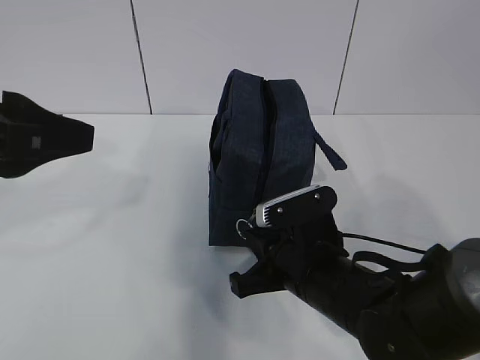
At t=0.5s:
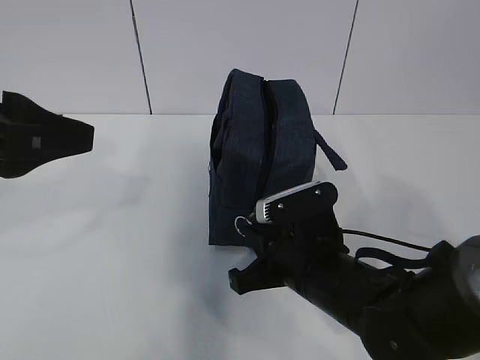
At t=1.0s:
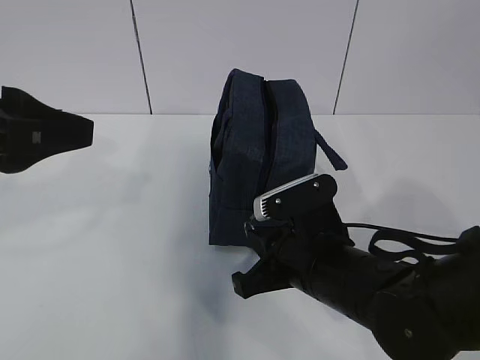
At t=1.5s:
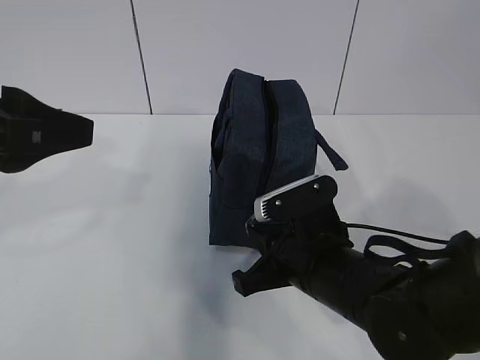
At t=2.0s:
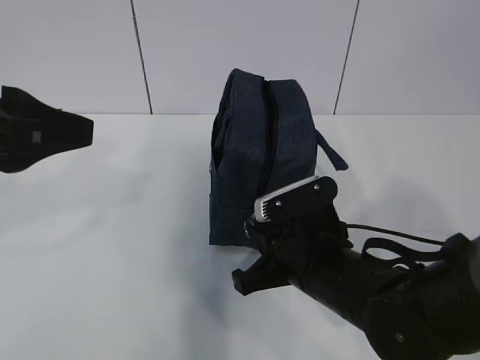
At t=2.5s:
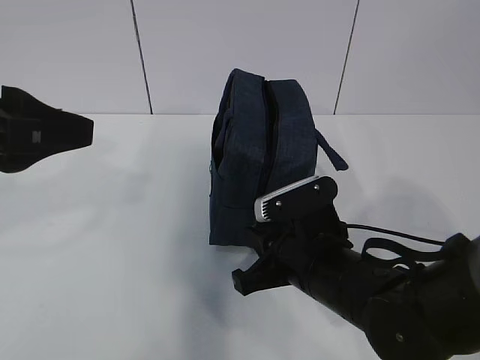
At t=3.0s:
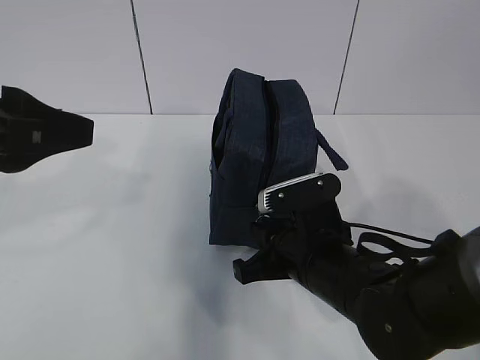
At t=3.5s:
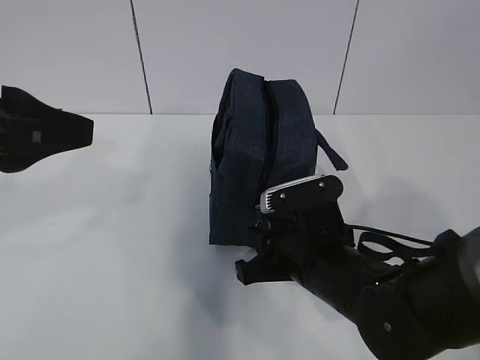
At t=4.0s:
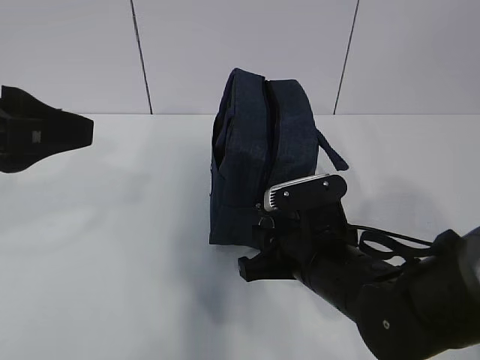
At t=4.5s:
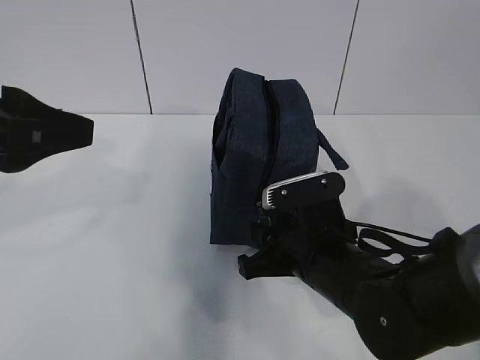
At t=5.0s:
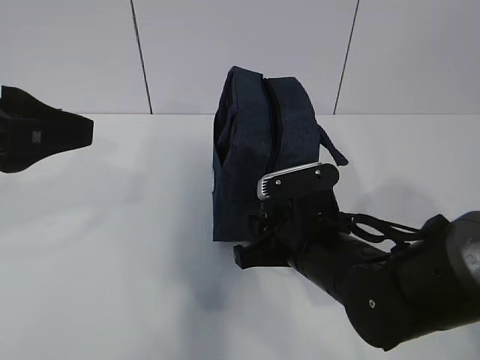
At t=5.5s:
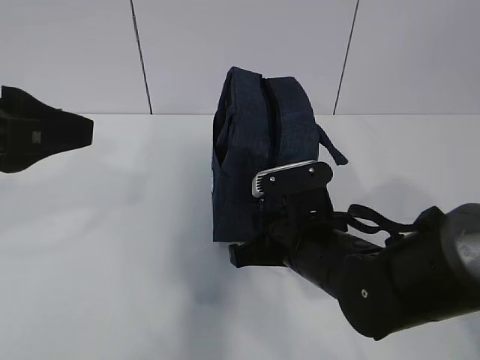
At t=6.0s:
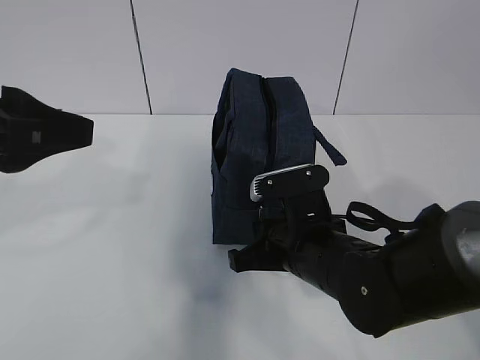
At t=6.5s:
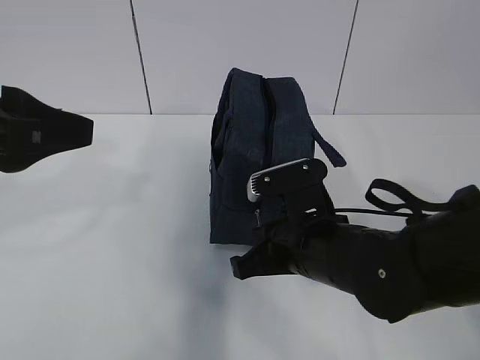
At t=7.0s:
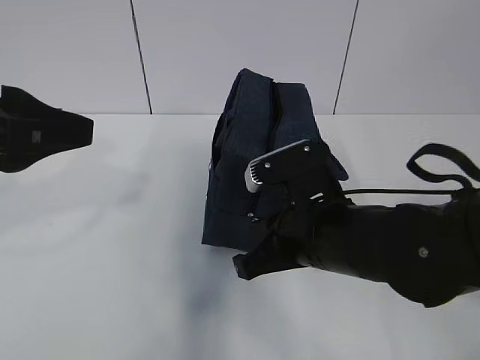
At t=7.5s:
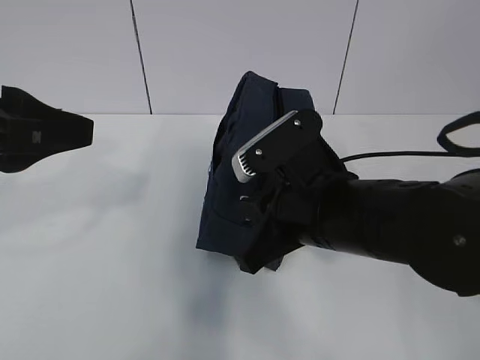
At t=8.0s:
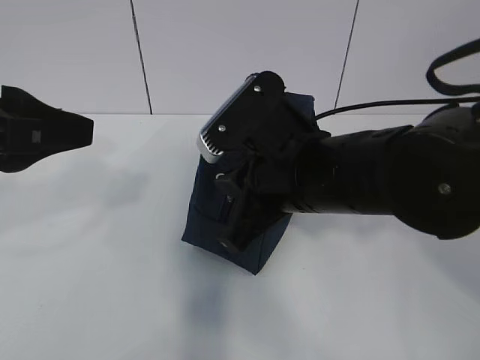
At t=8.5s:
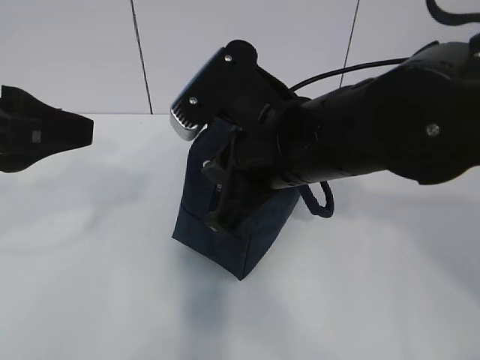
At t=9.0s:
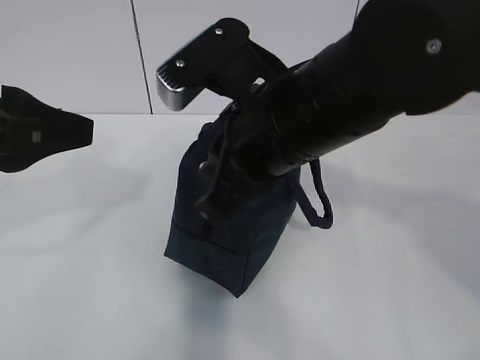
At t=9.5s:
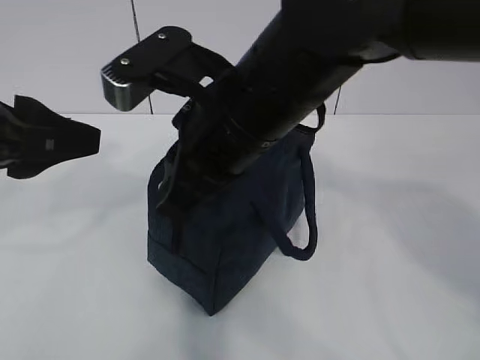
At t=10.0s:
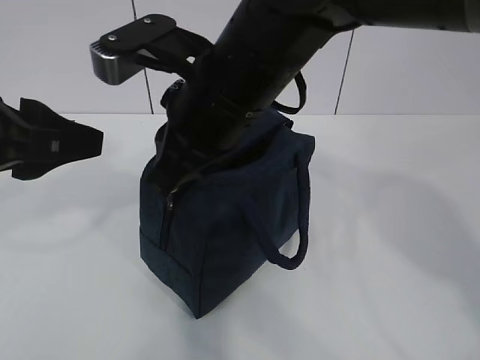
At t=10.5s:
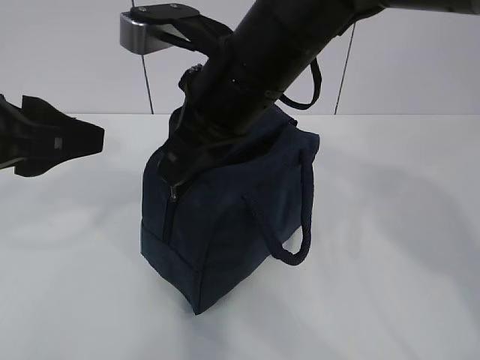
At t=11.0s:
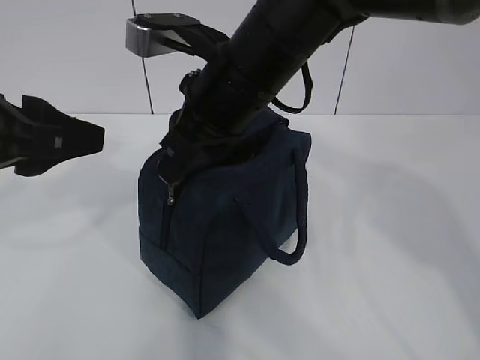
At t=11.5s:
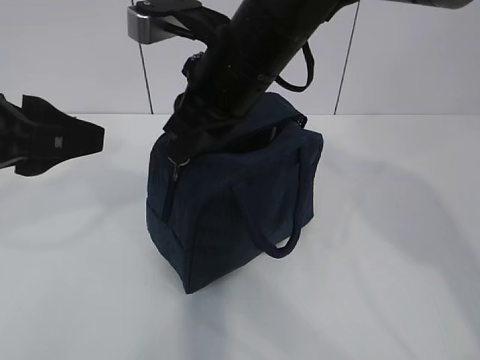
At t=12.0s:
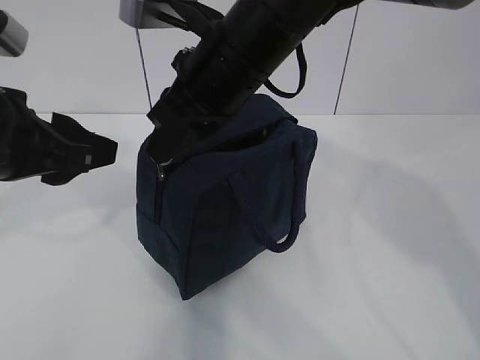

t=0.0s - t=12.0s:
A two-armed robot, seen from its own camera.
t=0.0s - t=2.0s: The grippers make only small movements.
t=2.0s - t=4.0s: The right gripper opens up.
t=4.0s - t=6.0s: The right gripper closes up.
t=6.0s - t=8.0s: The right gripper travels upward by about 10 cm.
t=8.0s - t=10.0s: The right gripper shifts some 10 cm upward and to the left.
t=10.0s - t=12.0s: The grippers make only small movements.

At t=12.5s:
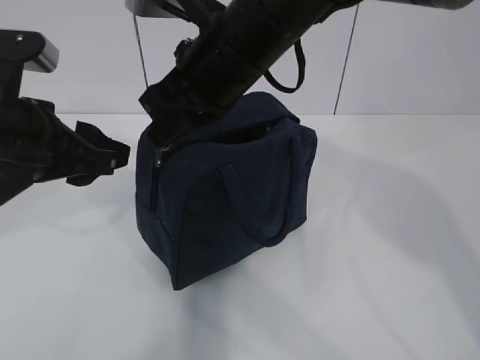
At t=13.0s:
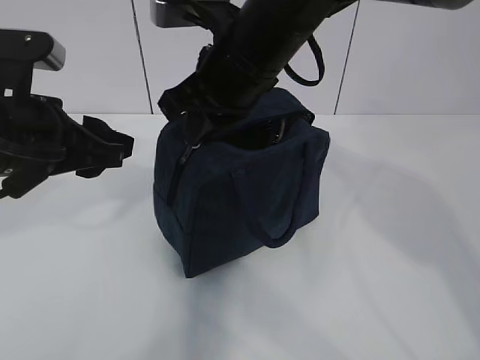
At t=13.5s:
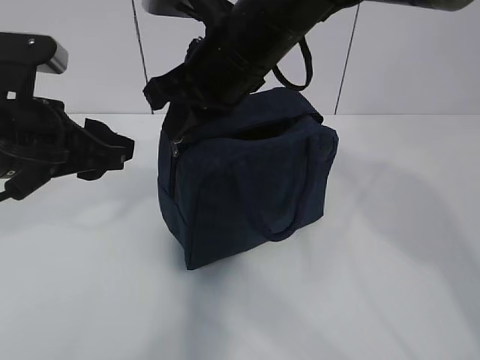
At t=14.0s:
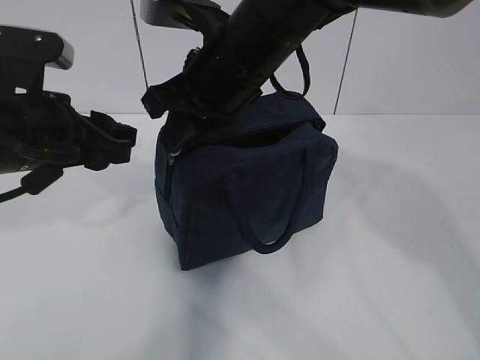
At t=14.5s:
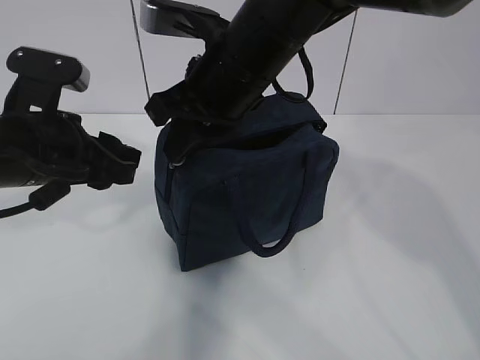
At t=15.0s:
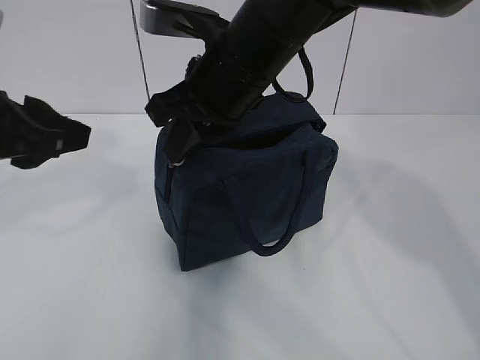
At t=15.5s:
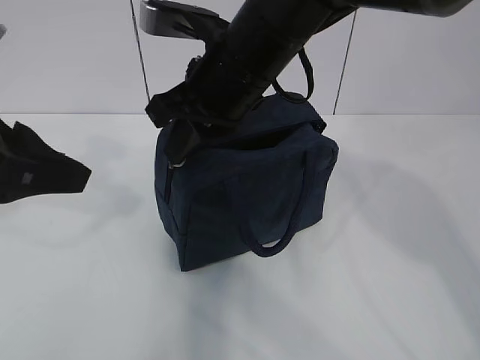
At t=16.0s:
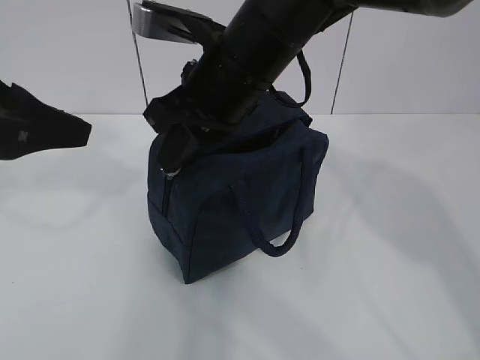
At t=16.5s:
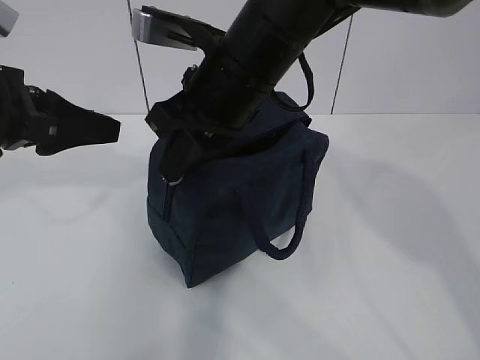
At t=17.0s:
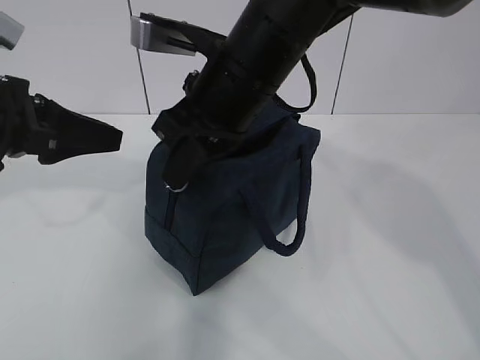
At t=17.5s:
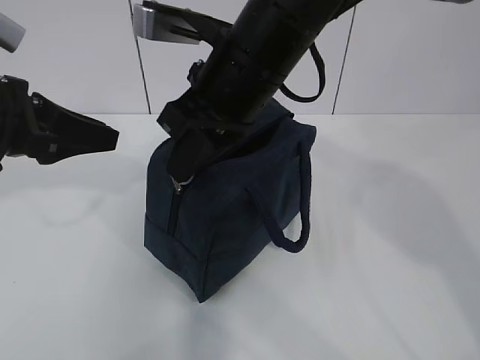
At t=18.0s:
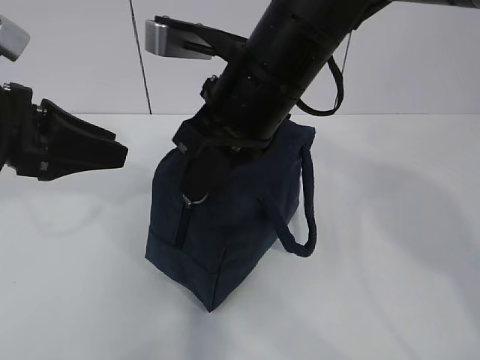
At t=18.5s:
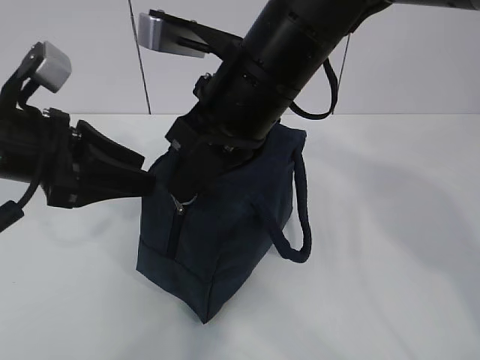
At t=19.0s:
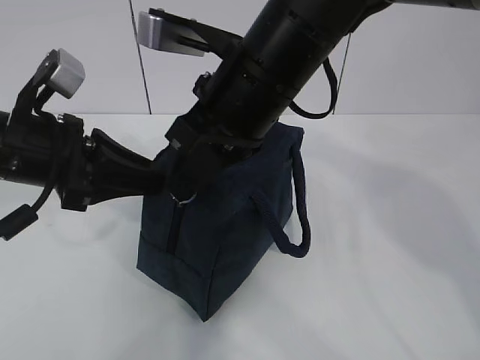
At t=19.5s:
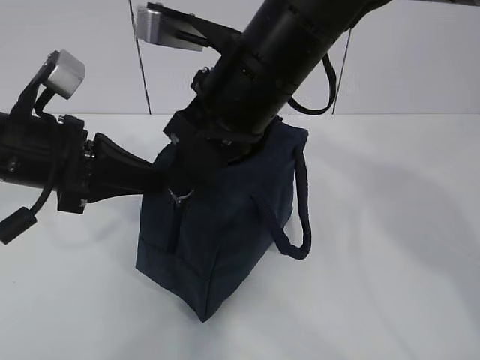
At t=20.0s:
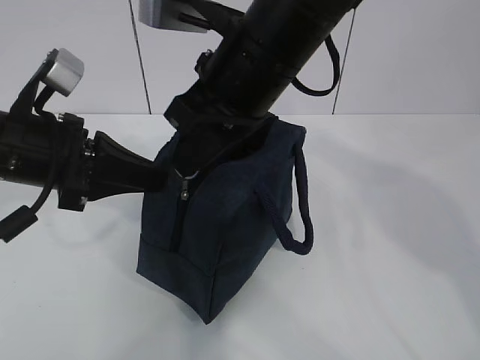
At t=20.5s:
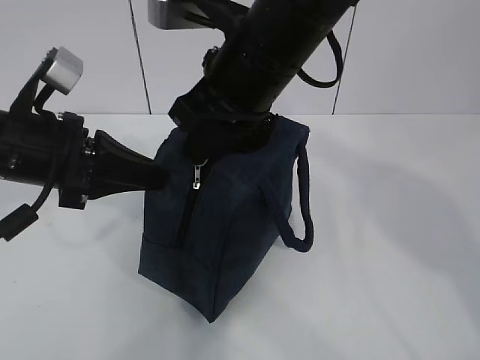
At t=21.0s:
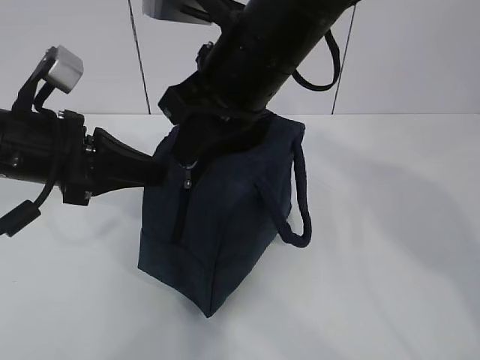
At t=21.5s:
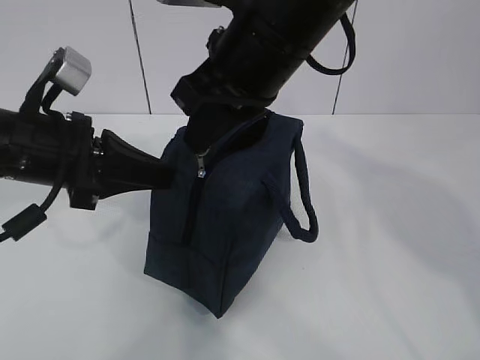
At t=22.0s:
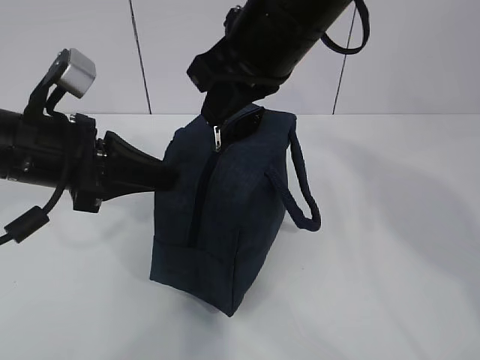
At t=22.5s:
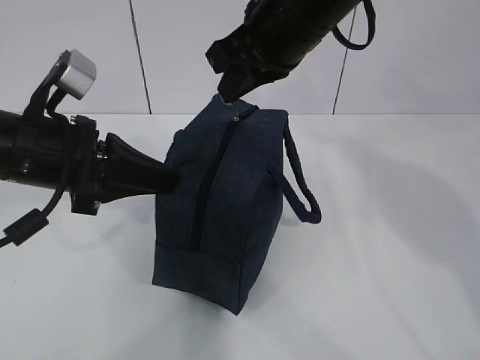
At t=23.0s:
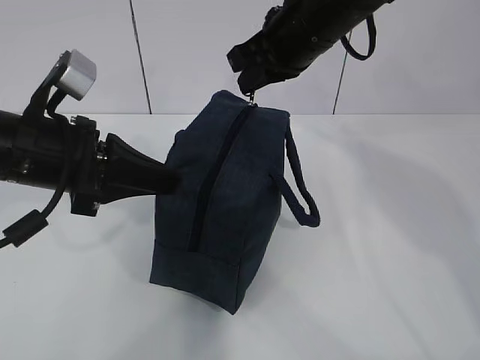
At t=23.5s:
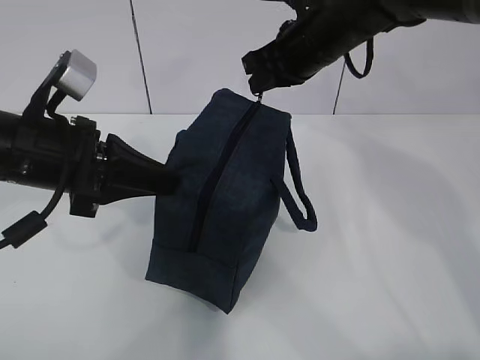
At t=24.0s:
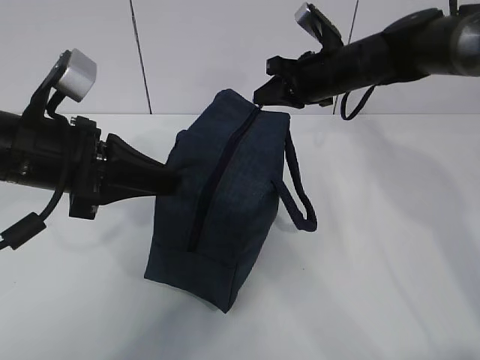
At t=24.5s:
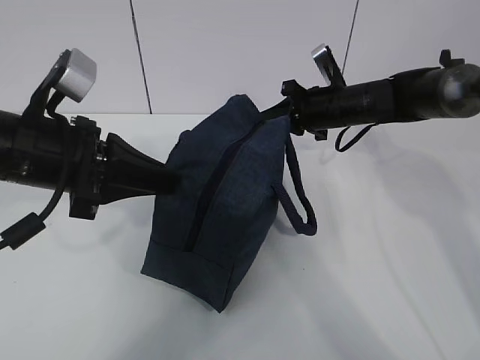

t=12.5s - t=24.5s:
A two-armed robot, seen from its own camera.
t=12.5s - t=14.5s: The grippers move only a little.
t=14.5s - t=16.5s: The left gripper shifts some 5 cm to the left.
t=16.5s - t=18.5s: The grippers stay close to where they were, moving slightly.
t=18.5s - t=20.5s: The left gripper closes up.
t=20.5s - t=22.5s: The right gripper changes place by some 5 cm.
t=22.5s - t=24.5s: The right gripper moves downward, forward and to the right, roughly 25 cm.

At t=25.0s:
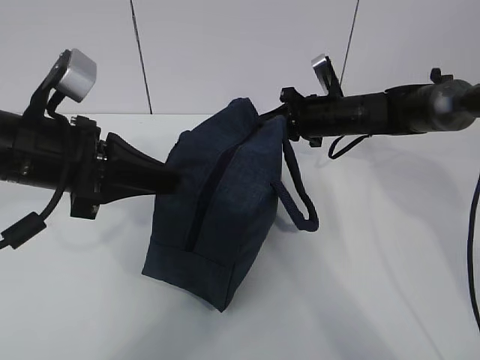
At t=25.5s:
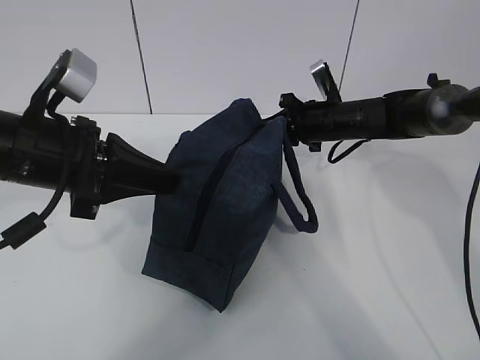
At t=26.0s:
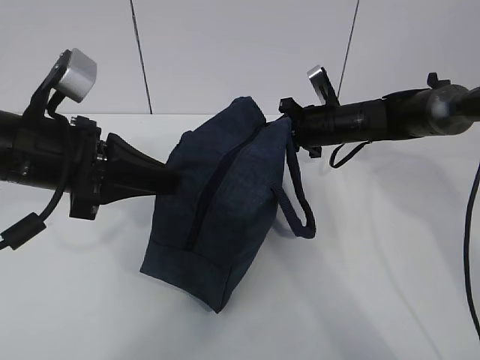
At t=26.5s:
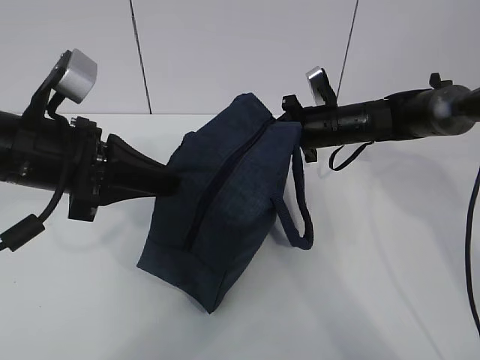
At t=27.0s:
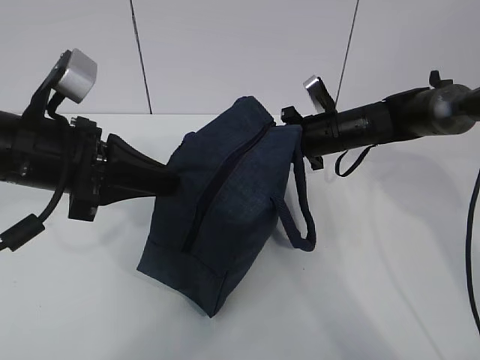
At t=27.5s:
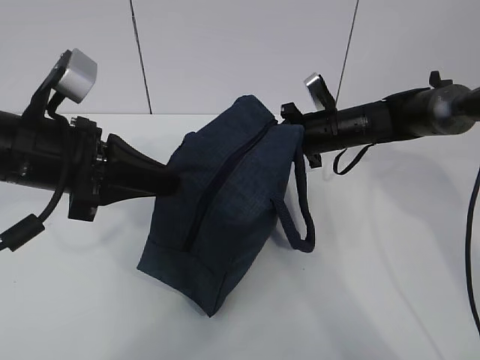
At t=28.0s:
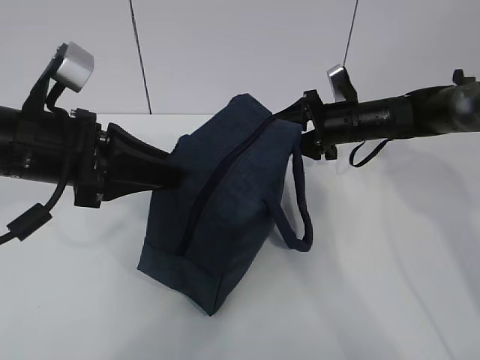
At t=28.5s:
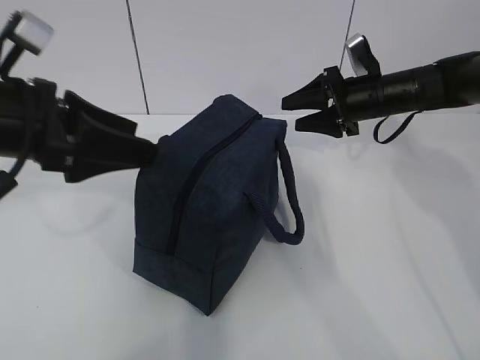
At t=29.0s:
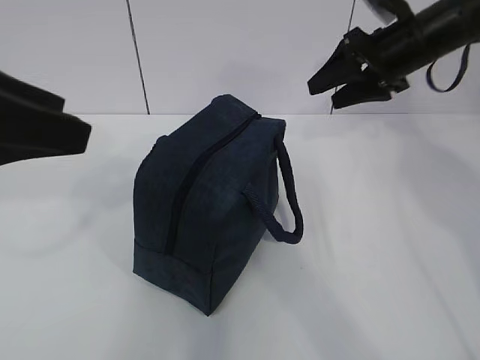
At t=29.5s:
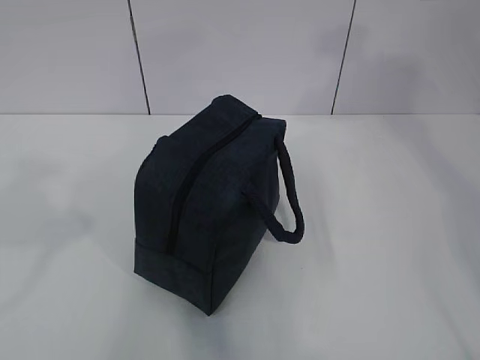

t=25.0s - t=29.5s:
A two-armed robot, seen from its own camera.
t=25.0s - t=27.0s: The grippers move only a little.
t=27.0s - t=29.5s: The right gripper is displaced upward and backward by about 40 cm, and opens its fingers. Meanwhile the left gripper goes approximately 25 cm backward, upward and to the left, and opens.
